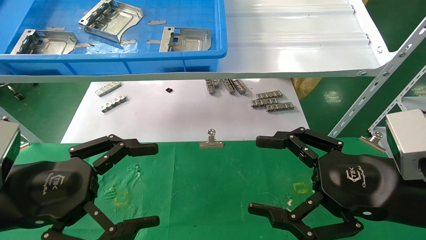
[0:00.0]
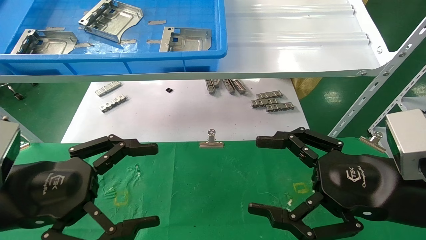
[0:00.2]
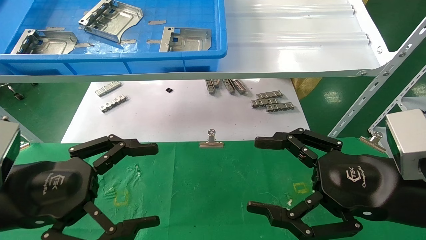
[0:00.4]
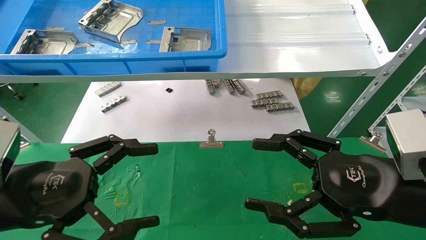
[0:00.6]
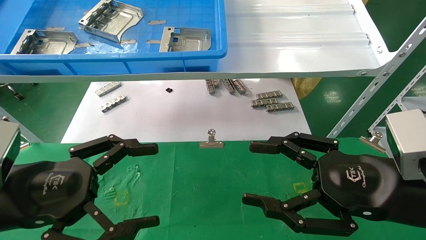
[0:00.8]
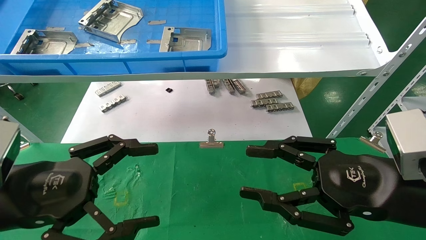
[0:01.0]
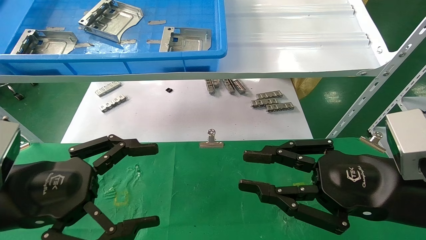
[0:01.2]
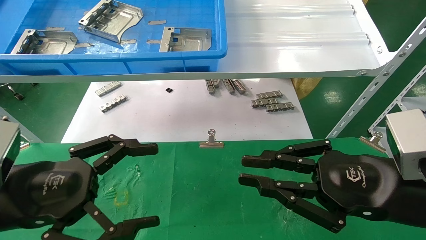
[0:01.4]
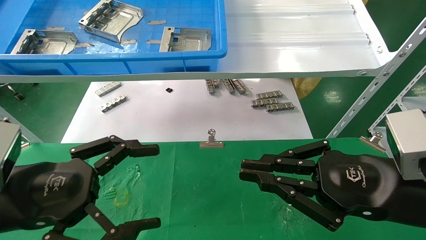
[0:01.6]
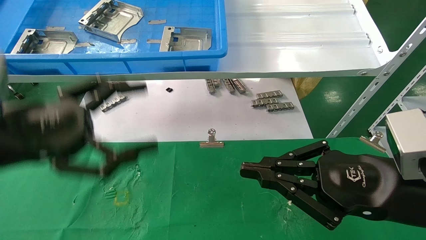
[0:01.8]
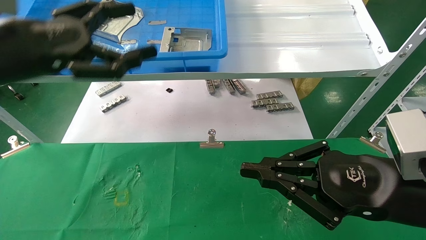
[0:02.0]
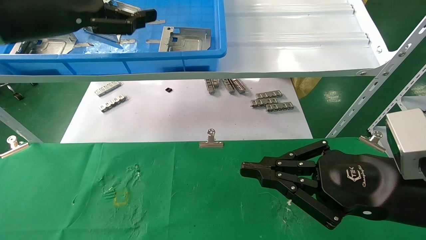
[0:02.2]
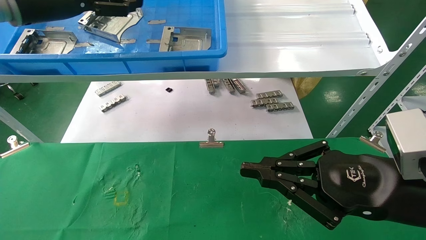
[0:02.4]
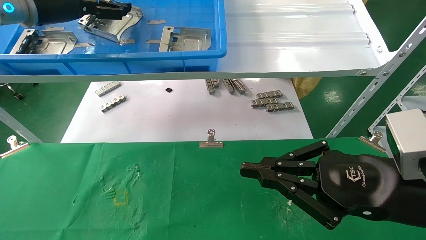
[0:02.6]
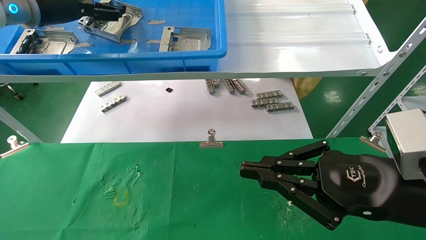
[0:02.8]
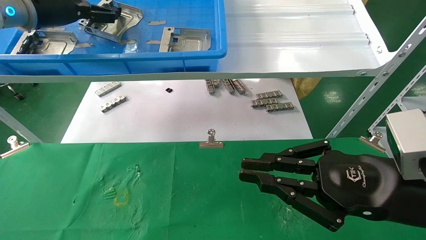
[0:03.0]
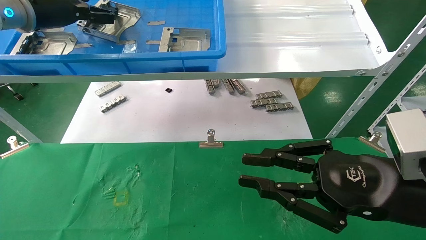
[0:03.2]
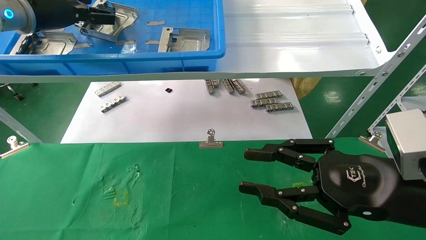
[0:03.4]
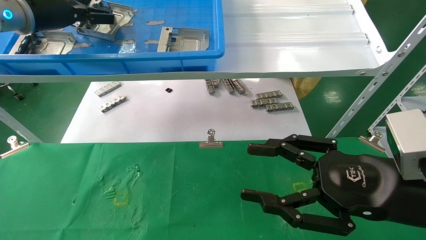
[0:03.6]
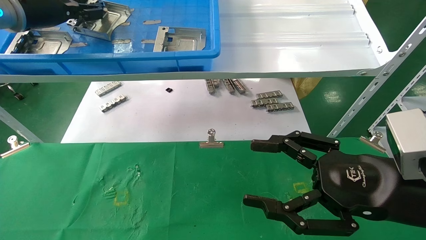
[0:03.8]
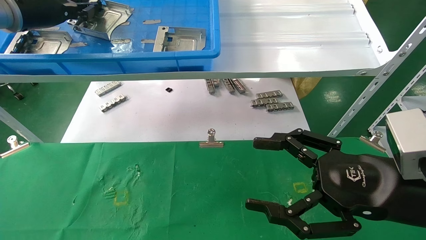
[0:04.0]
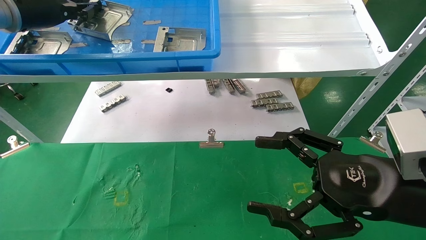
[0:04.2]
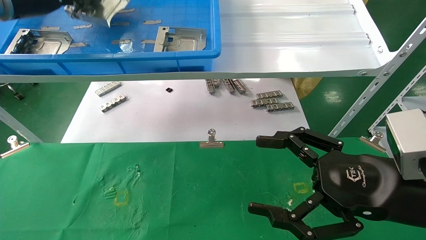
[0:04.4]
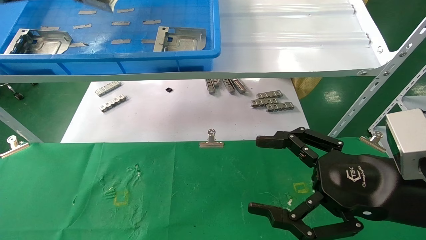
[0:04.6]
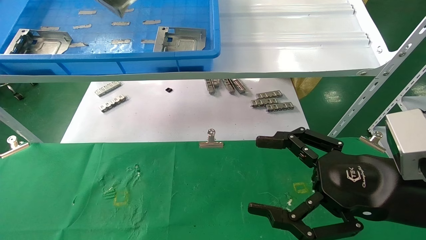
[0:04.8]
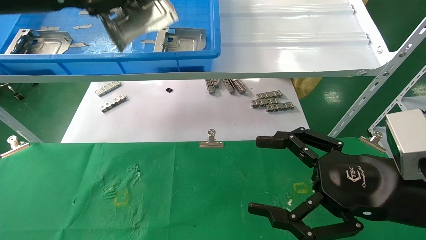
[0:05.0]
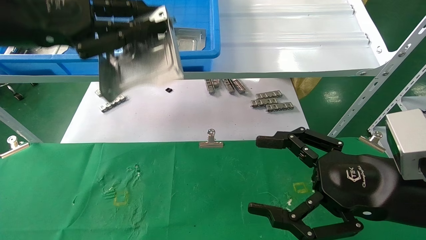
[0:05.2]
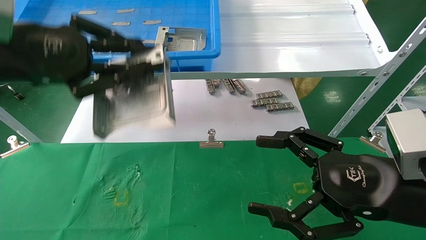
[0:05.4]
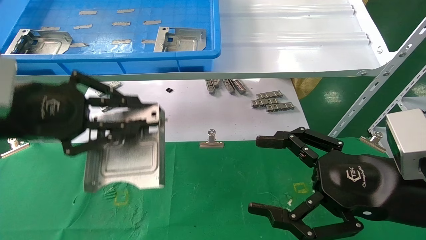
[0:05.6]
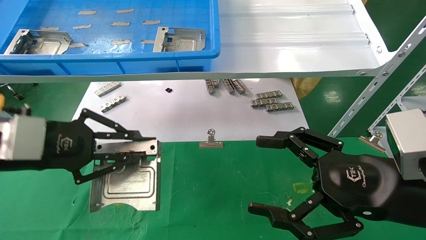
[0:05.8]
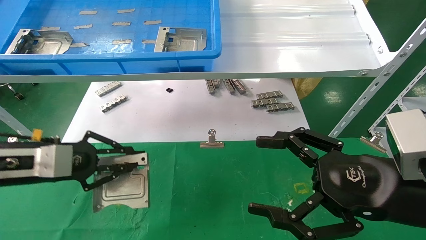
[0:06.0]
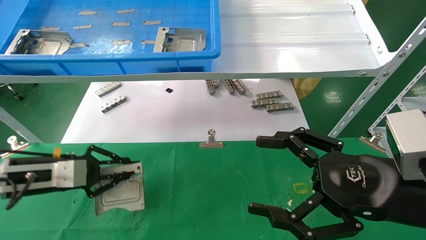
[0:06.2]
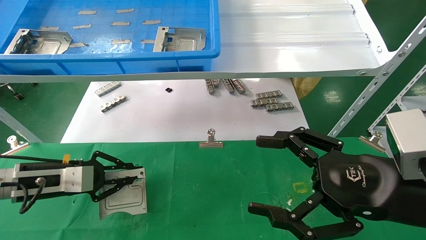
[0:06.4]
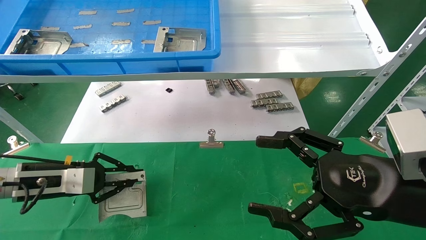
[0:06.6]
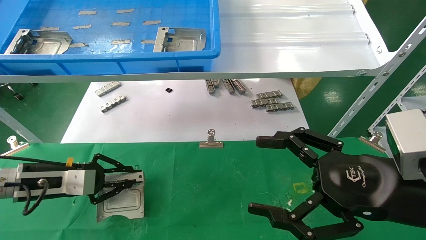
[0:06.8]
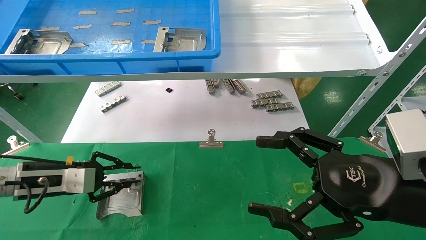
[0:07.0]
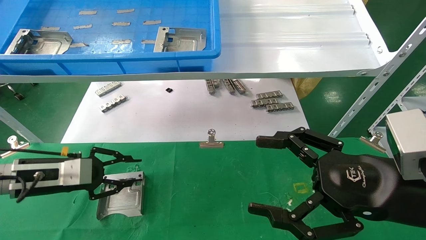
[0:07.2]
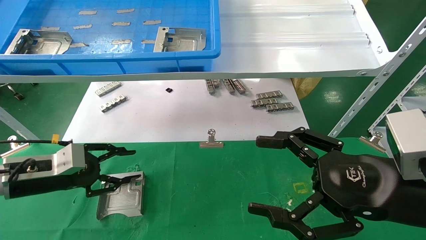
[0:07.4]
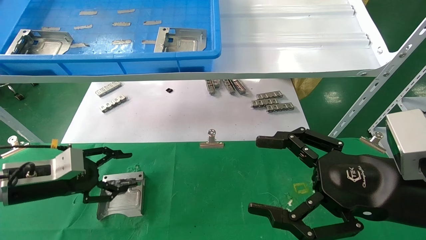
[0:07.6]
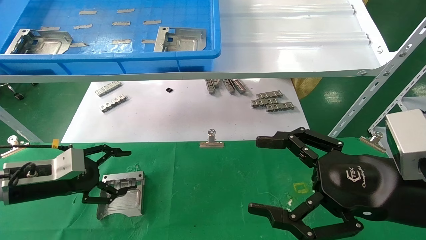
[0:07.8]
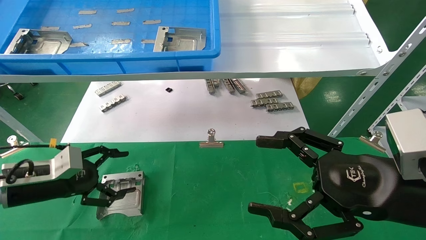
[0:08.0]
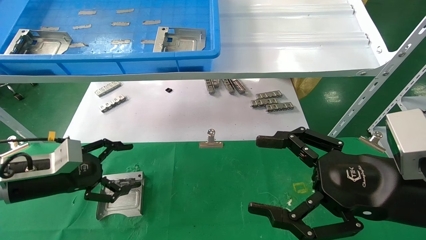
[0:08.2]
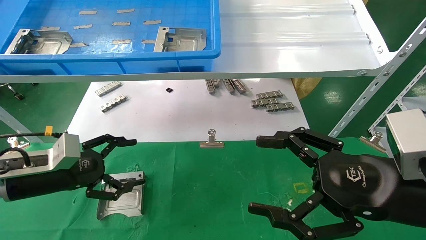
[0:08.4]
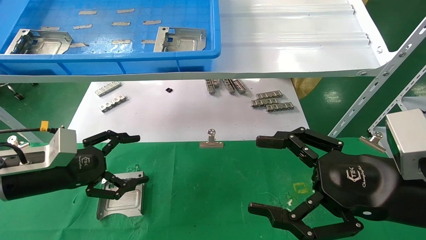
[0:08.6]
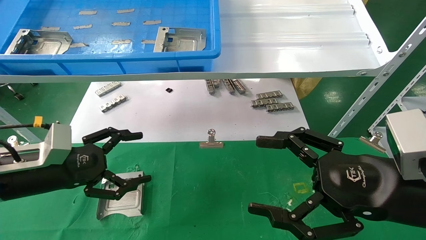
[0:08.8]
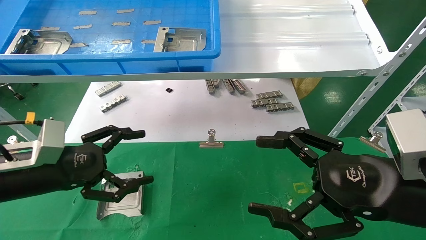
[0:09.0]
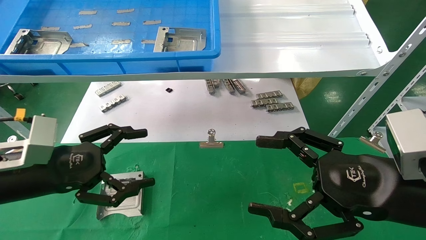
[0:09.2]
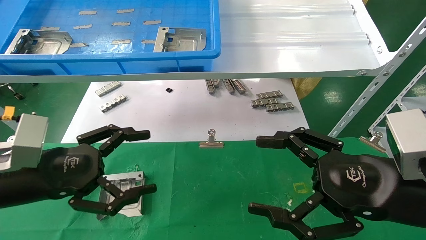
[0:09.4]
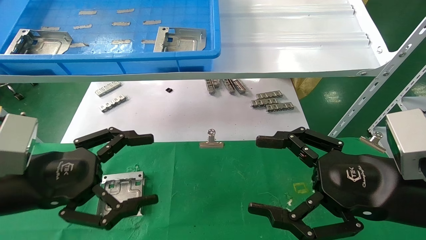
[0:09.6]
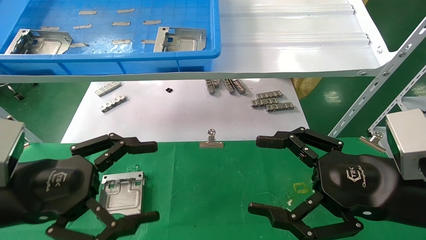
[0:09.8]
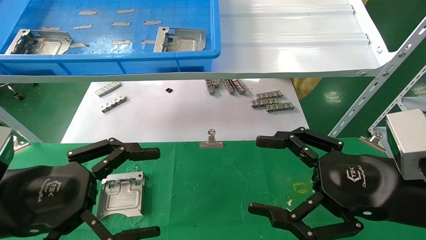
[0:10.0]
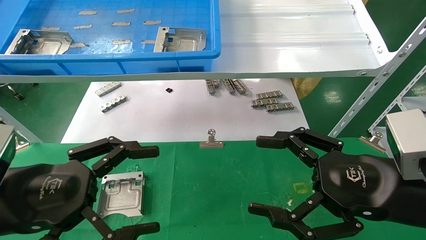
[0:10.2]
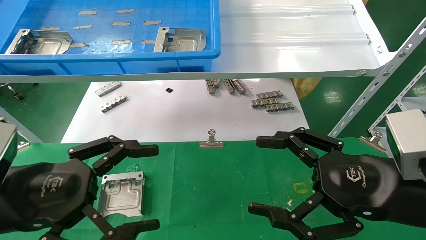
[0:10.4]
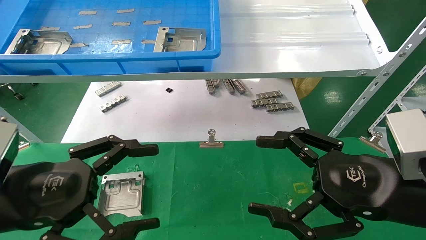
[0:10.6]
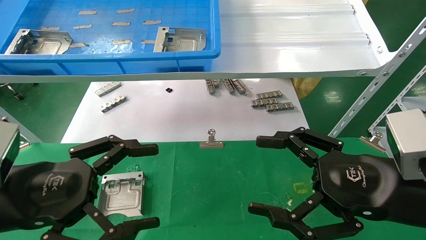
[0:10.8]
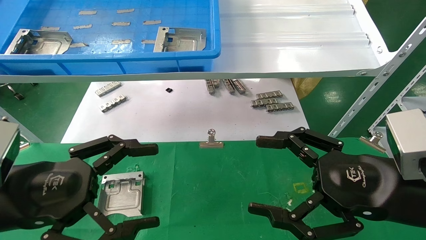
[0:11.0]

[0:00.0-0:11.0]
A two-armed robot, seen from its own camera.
Task of the whole recording: use the mechanical arm to pick up the parts and place them on the table.
Step, 0:02.0 to 0:04.2: Pick up the hard drive bracket from the feeding area.
Step, 0:04.4 to 0:06.8: Place the hard drive bracket into the box.
0:00.0 to 0:01.6: The right gripper closes.
0:01.6 to 0:03.2: The left gripper is displaced forward and upward by approximately 30 cm.
0:03.2 to 0:04.8: The right gripper opens its fingers, while the left gripper goes some 10 cm backward, and closes its fingers.
0:04.8 to 0:06.2: The left gripper shifts roughly 30 cm downward.
0:06.2 to 0:07.8: The left gripper opens up.
0:07.8 to 0:09.4: The left gripper moves backward, upward and to the right, about 15 cm.
0:09.4 to 0:11.0: The left gripper is displaced backward by about 5 cm.

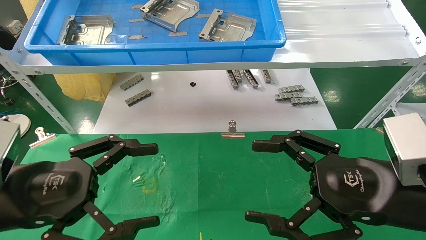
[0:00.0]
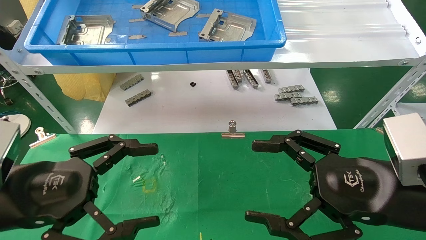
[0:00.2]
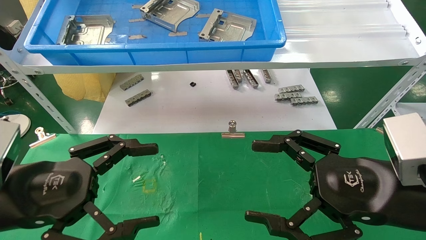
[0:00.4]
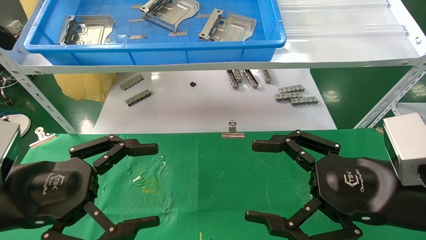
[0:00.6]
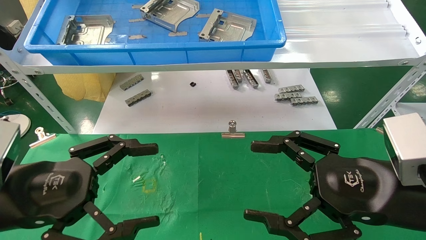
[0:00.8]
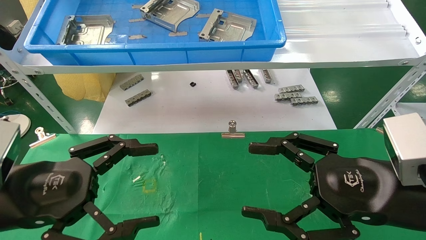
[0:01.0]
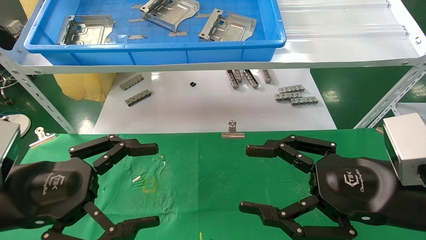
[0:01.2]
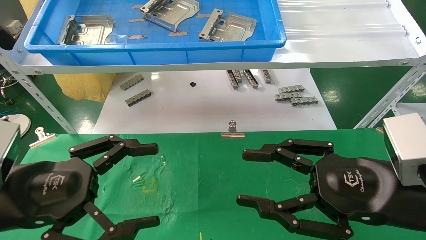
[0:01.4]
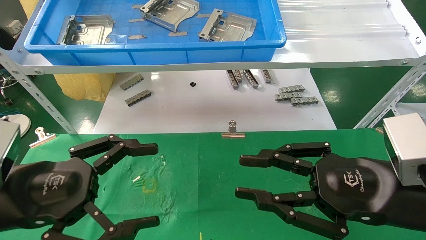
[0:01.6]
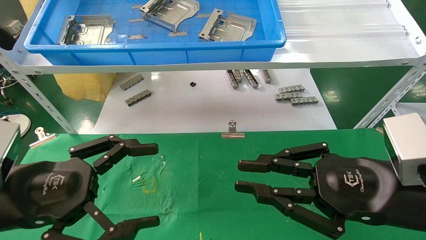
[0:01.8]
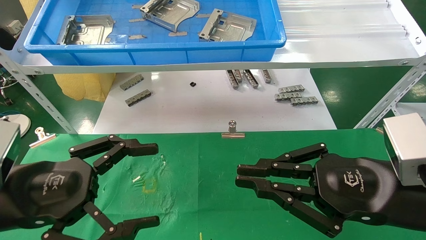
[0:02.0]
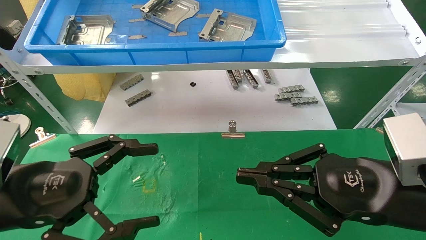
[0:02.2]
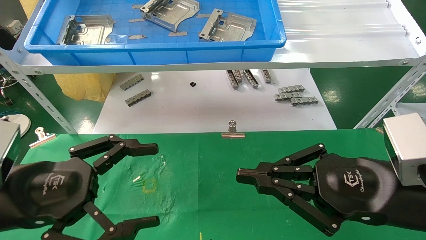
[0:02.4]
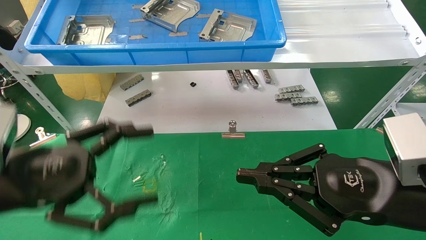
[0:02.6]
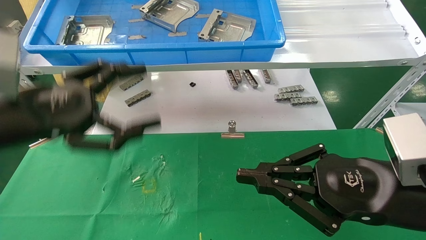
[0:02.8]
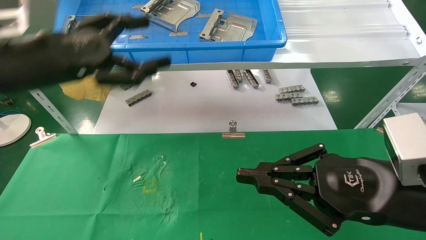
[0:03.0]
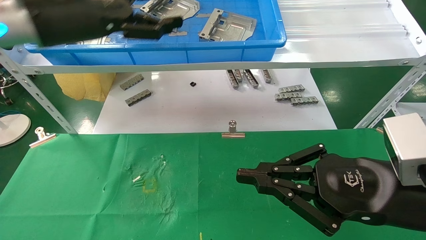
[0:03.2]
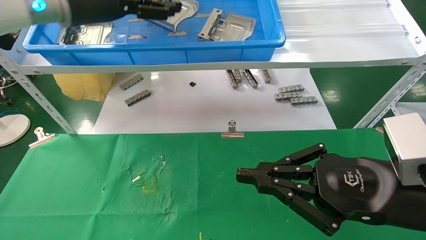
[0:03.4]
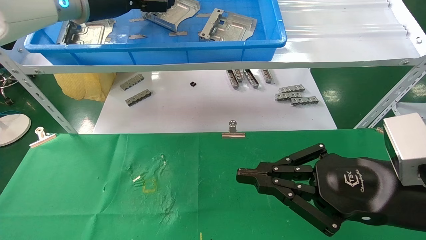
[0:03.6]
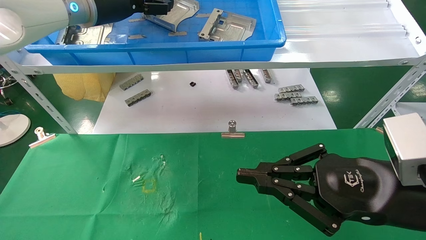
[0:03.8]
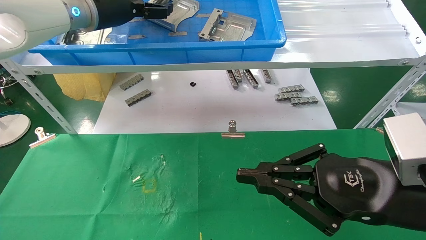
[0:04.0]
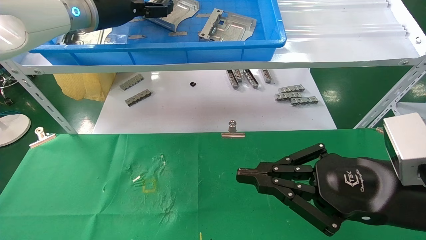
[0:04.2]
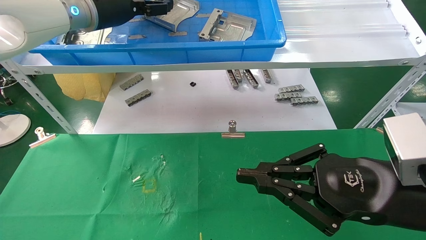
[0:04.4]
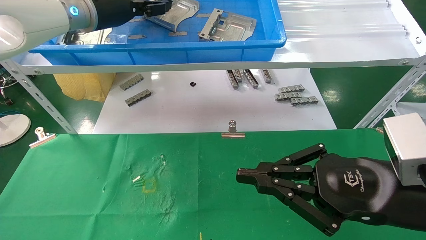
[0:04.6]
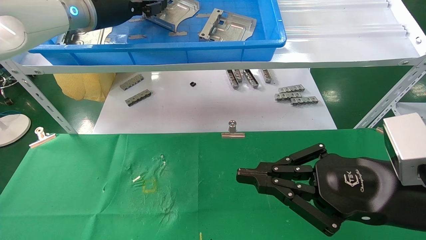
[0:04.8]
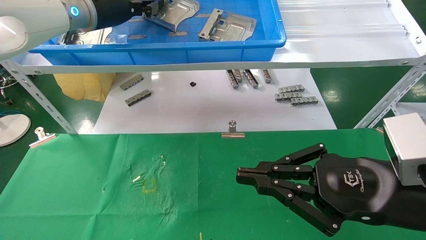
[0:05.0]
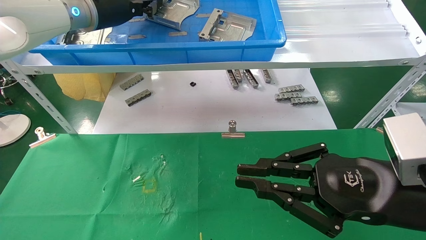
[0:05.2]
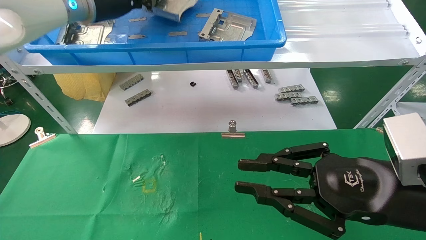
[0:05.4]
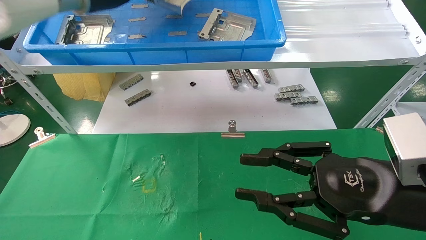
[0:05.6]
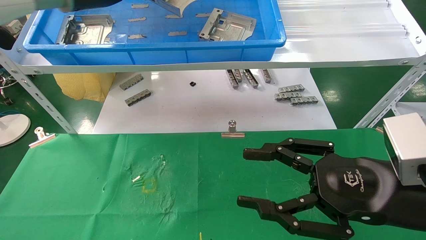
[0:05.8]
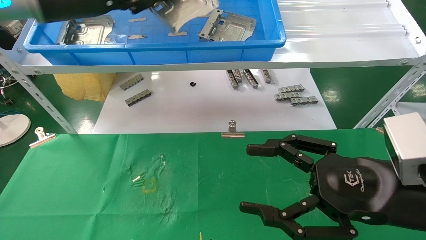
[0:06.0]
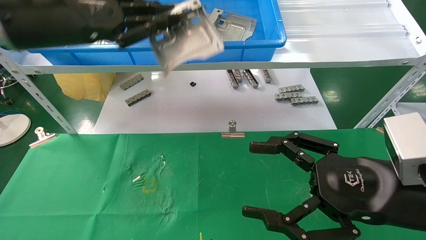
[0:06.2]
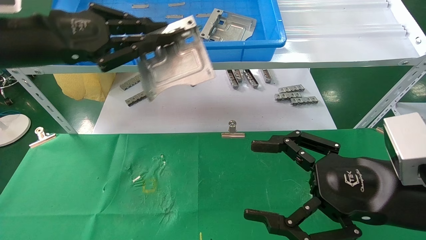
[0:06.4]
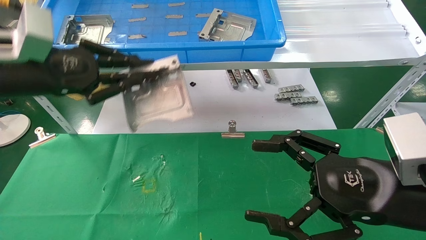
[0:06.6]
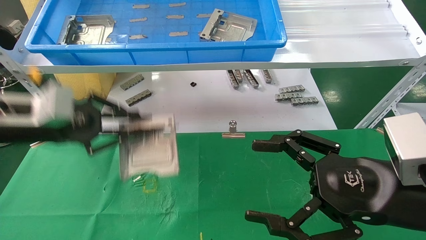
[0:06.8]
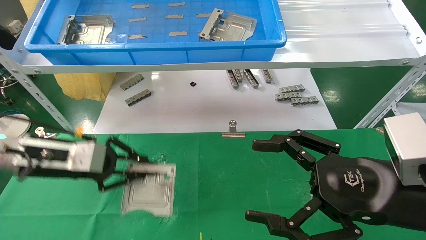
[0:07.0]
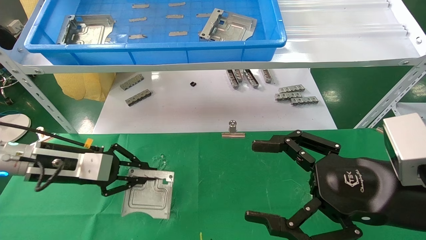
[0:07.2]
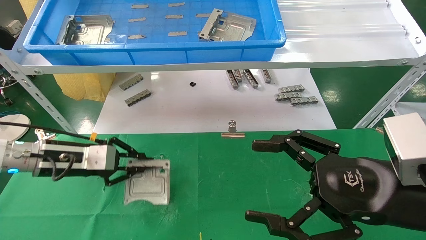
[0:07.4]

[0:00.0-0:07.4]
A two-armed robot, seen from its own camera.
Task of the whole recording: use the mechanical arm to pick up the parts and place them on the table.
Step, 0:02.8 to 0:05.2: Pick up the hard drive bracket from the feeding area.
0:00.0 to 0:01.4: The two grippers keep their place.
0:01.4 to 0:03.0: The right gripper closes up. The left gripper heads upward and forward, covering approximately 20 cm.
0:03.0 to 0:04.4: The left gripper goes some 15 cm forward and upward.
0:04.4 to 0:06.0: The left gripper goes some 10 cm backward, and closes up; the right gripper opens.
0:06.0 to 0:07.4: The left gripper shifts some 25 cm downward. Meanwhile the right gripper opens up.
